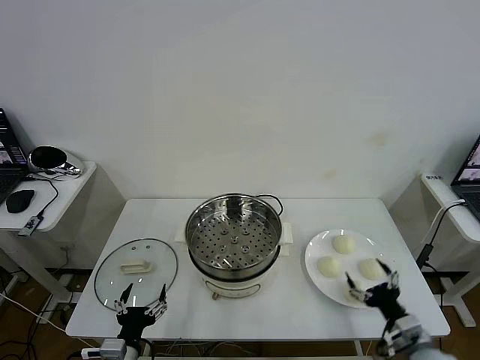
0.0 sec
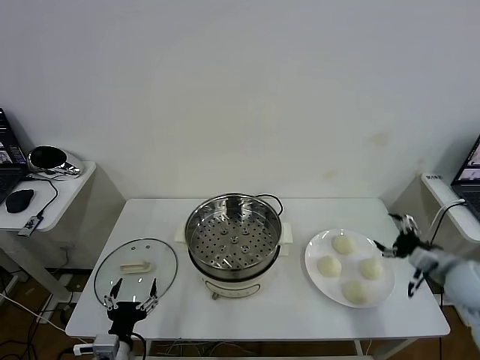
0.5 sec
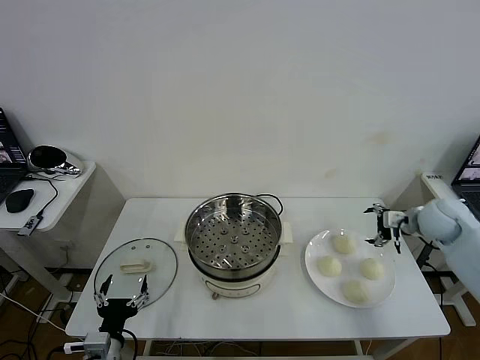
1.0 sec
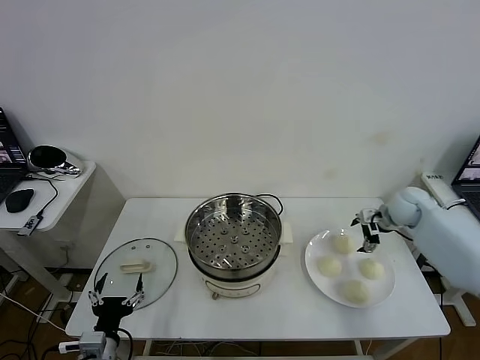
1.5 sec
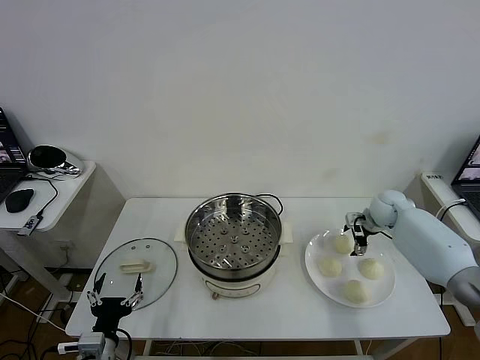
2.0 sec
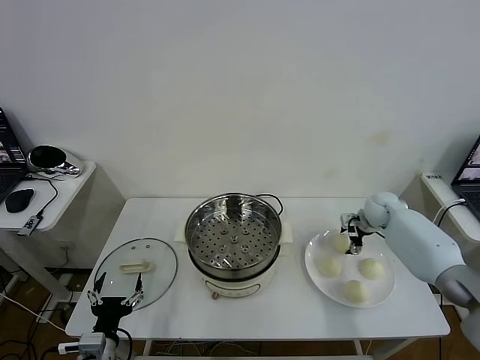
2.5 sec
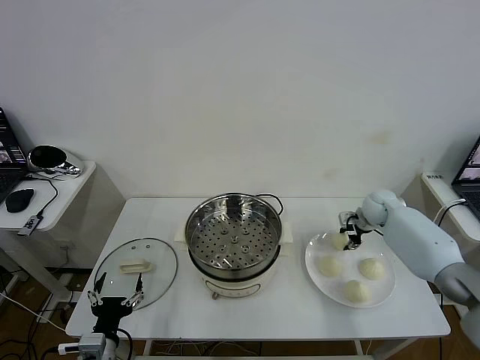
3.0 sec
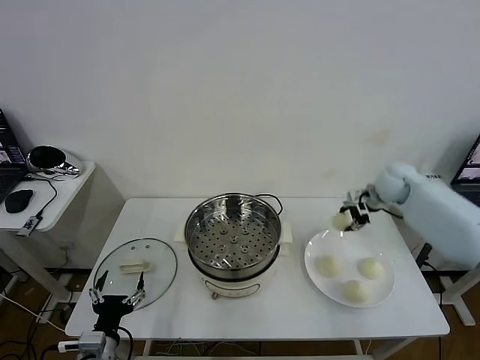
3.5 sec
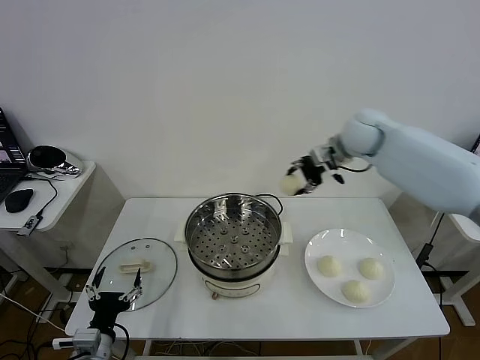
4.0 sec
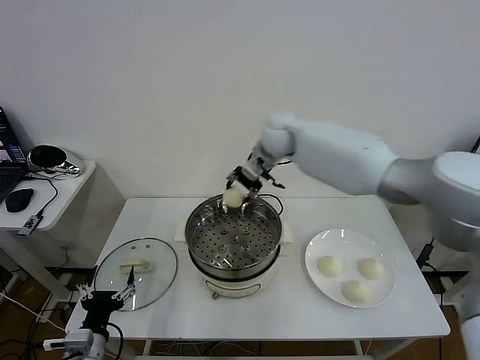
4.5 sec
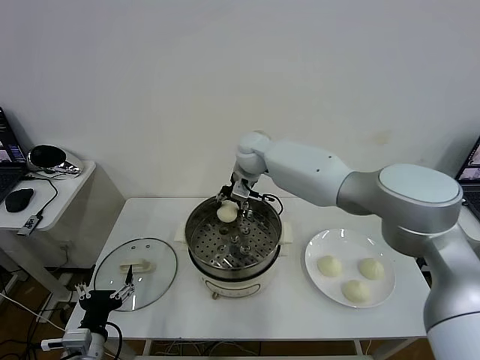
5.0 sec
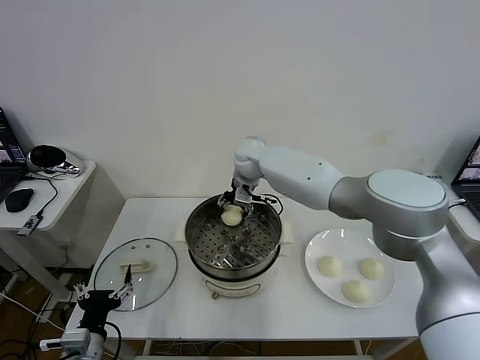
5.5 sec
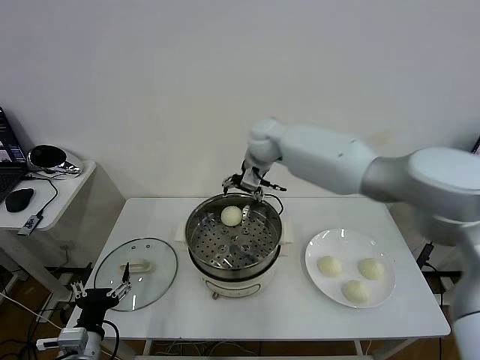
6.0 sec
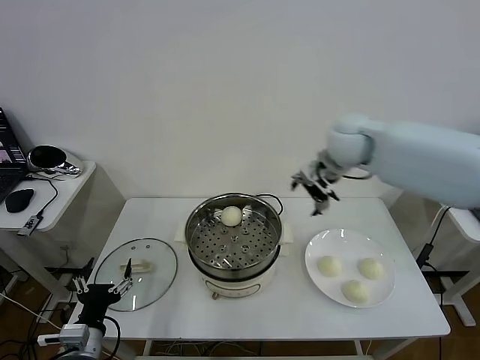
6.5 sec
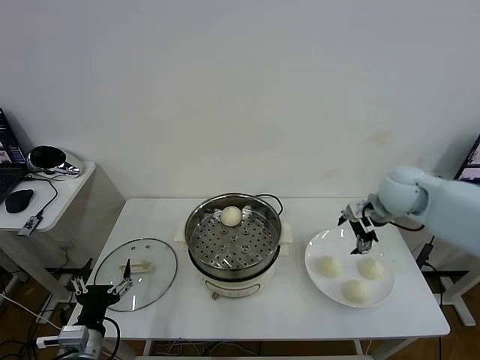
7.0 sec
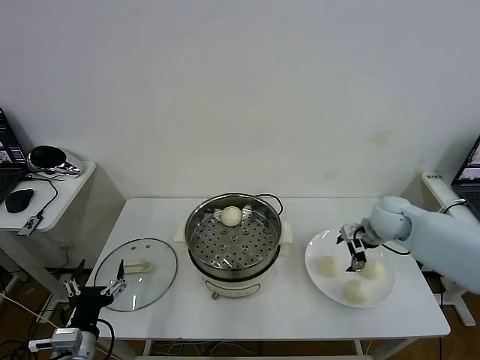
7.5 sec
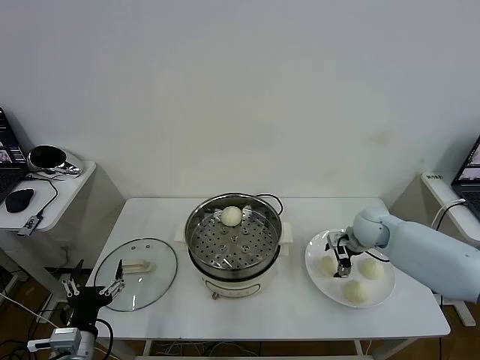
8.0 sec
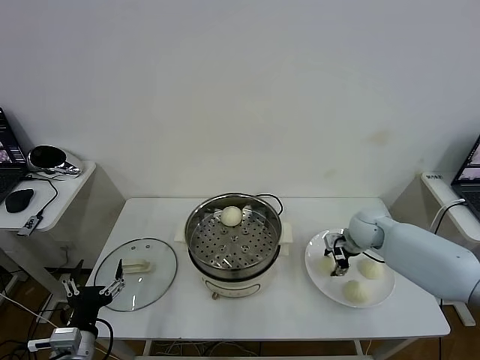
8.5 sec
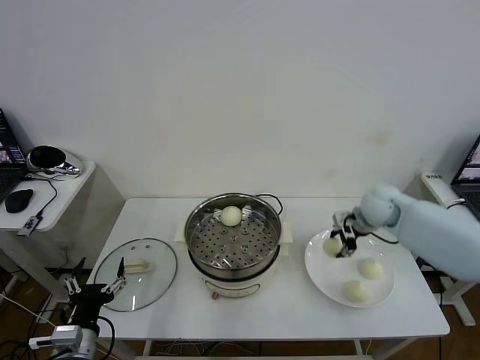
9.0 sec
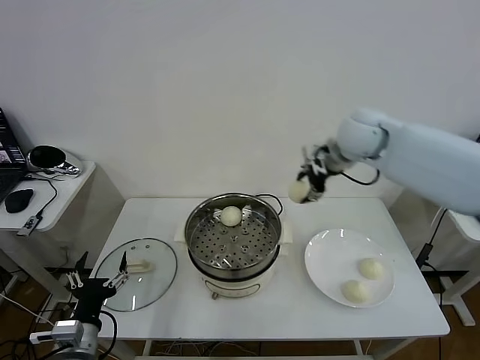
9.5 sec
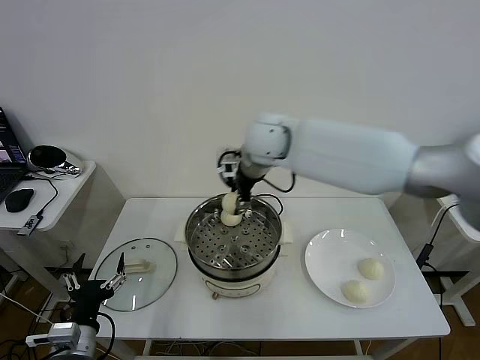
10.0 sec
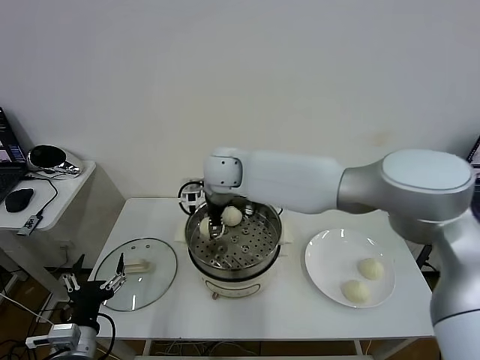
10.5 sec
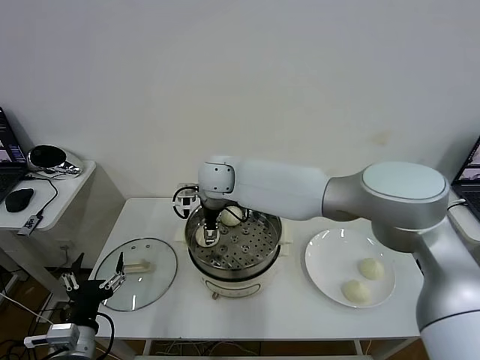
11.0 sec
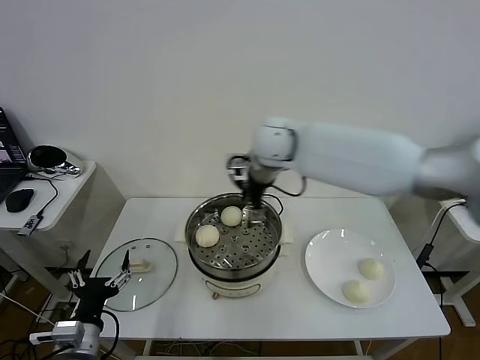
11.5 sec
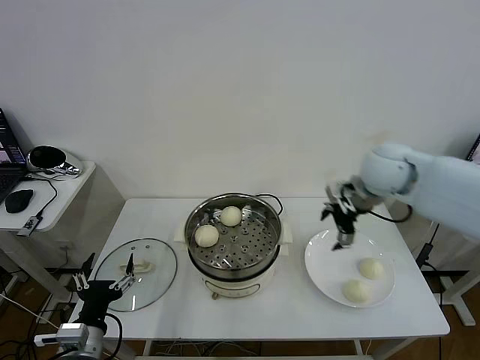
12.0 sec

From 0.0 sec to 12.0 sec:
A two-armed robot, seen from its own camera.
Task of the whole recording: take steamed baozi put them in steamer then cover it.
Step, from 0.0 sec to 2.5 sec: Grasp the baozi in the plate with right gripper.
Step, from 3.0 sec to 5.5 sec: Place the baozi on the steamer with right gripper.
Step, from 6.0 sec to 8.5 sec: Grasp the baozi in the plate with right gripper.
Step, from 9.0 sec to 11.0 sec: Place the baozi on the steamer with right gripper.
From 2.0 sec to 4.0 sec: The right gripper heads upward and to the left, covering some 30 cm, and closes.
From 4.0 sec to 6.0 sec: The right gripper shifts roughly 10 cm to the left, and opens its fingers.
From 6.0 sec to 8.0 sec: The right gripper goes about 35 cm to the right, downward and backward.
From 8.0 sec to 10.0 sec: The right gripper travels to the left and upward by approximately 40 cm, and closes its fingers.
From 10.0 sec to 12.0 sec: The right gripper shifts some 30 cm to the right, and opens.

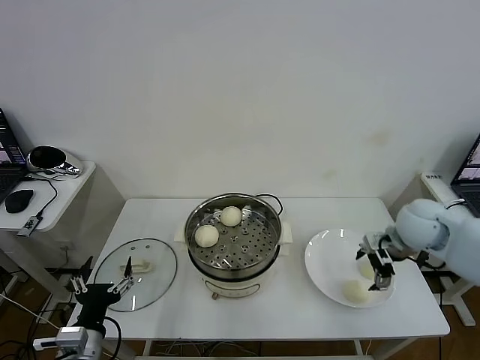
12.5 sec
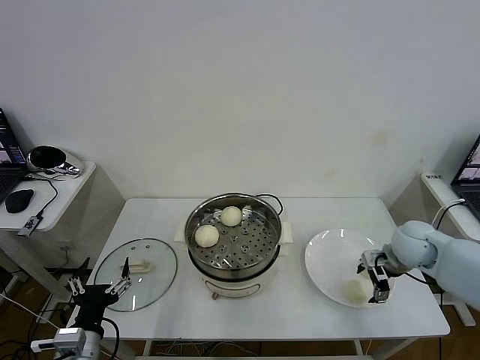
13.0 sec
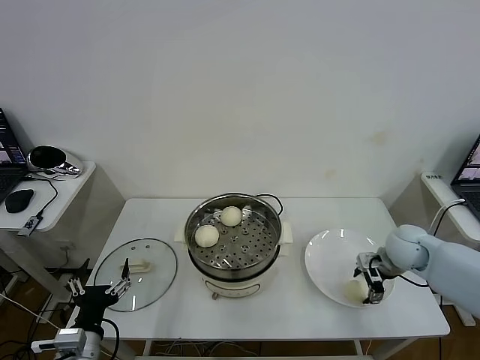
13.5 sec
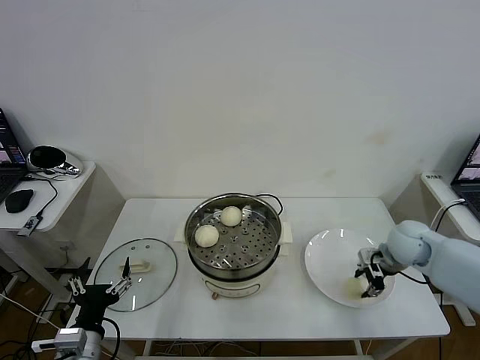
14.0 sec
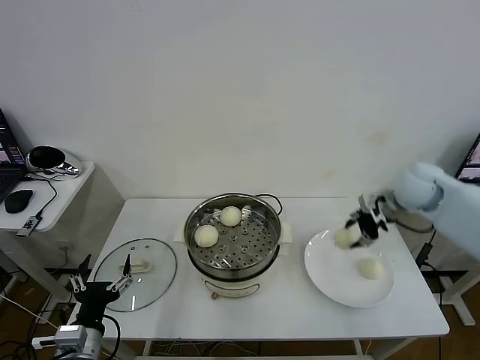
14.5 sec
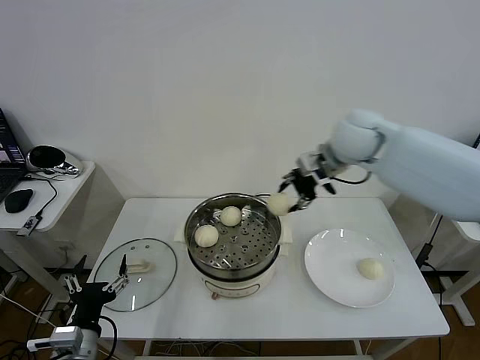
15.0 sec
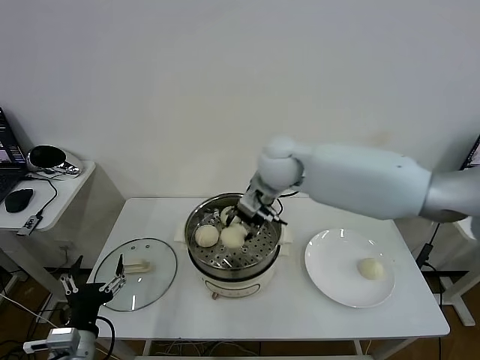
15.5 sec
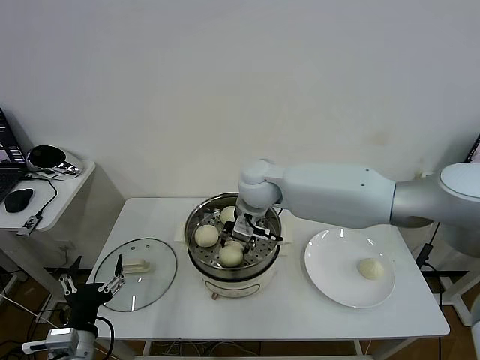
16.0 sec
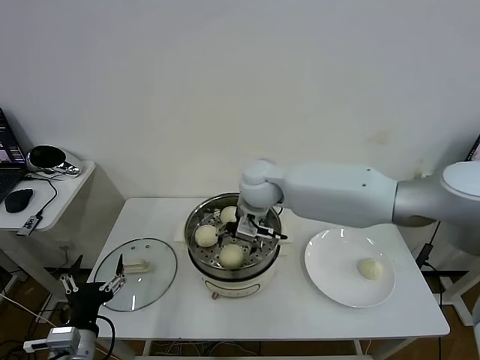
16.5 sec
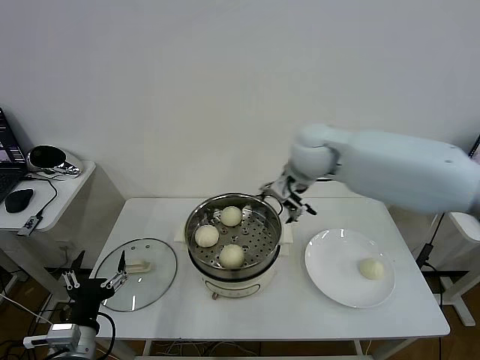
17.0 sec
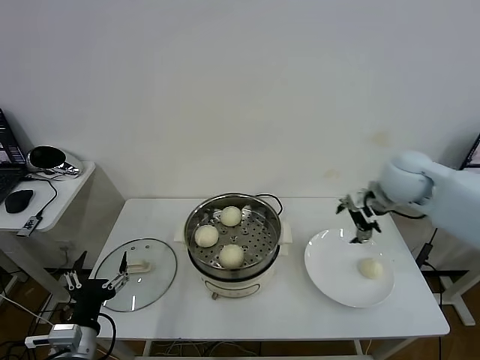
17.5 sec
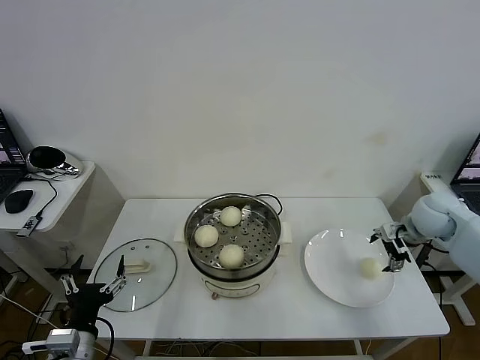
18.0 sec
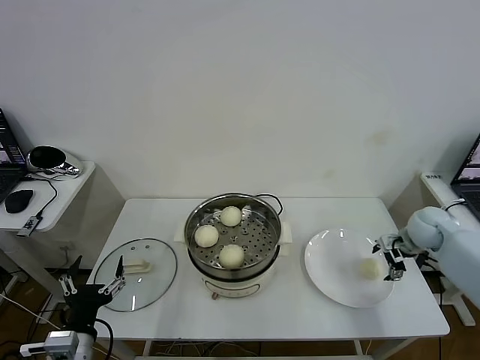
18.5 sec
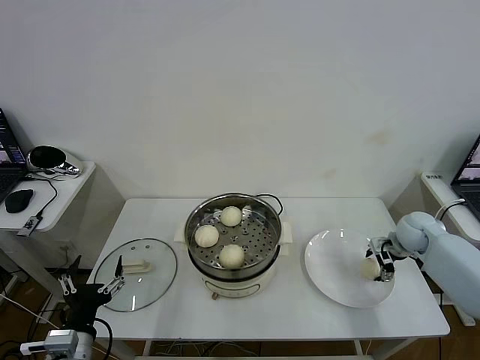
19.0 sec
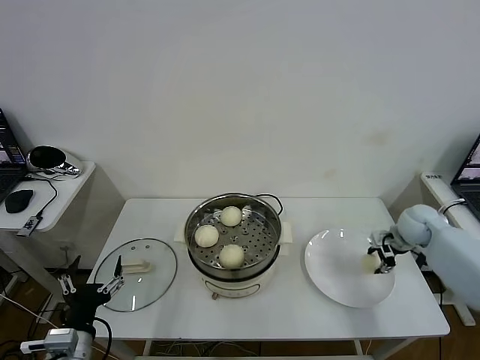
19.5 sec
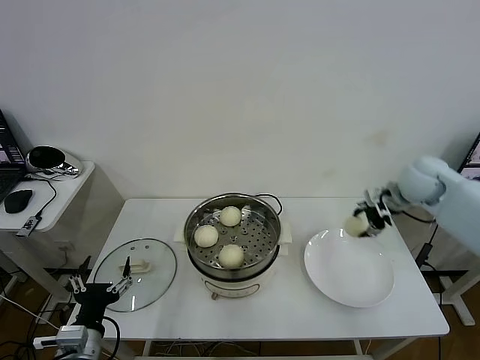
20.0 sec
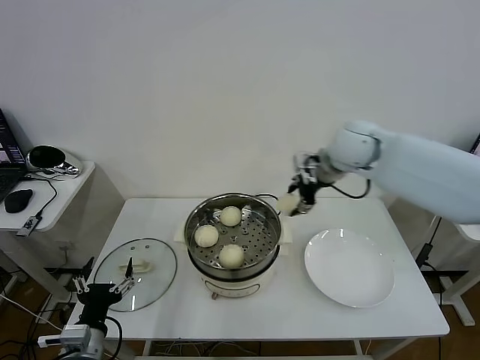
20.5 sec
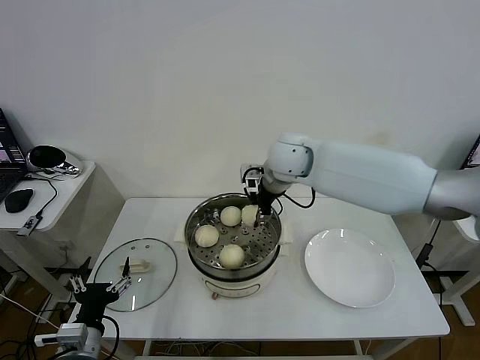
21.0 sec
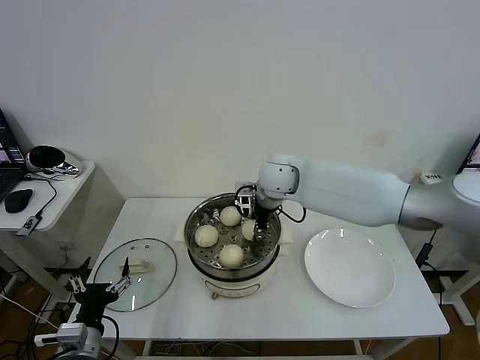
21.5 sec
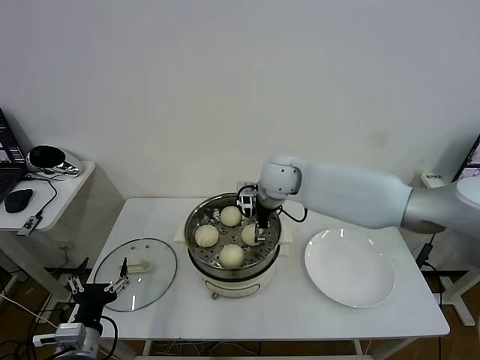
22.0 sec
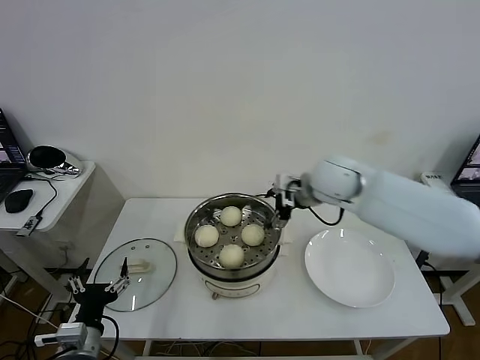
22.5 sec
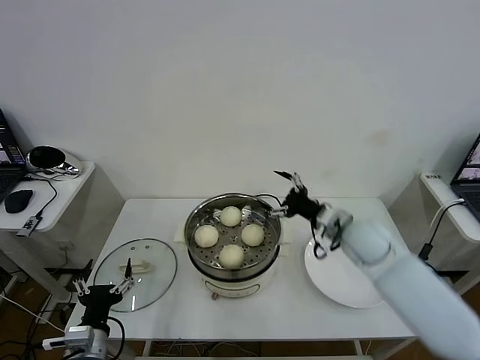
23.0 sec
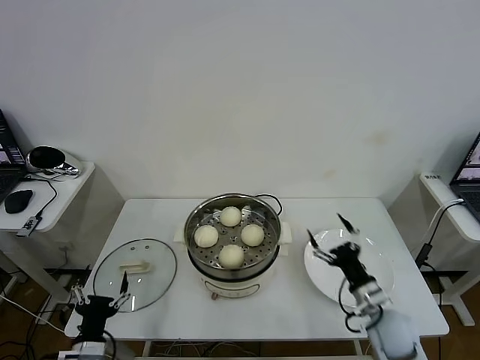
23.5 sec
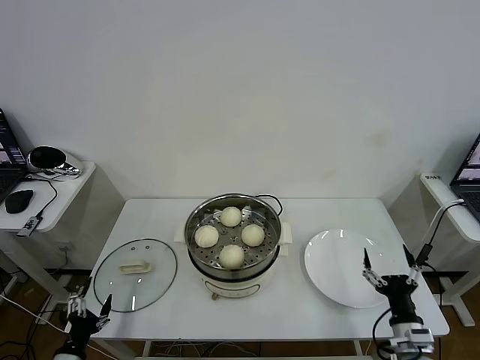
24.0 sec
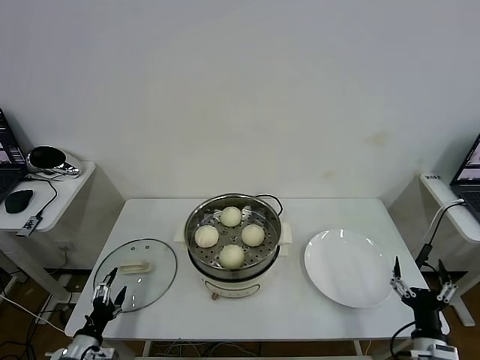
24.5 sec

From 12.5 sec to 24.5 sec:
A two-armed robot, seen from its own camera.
Task of the whole recording: take steamed baozi put them in steamer then cover it.
Step, from 14.0 sec to 16.5 sec: Place the baozi on the steamer with right gripper.
Step, from 17.0 sec to 19.0 sec: Grasp the baozi in the plate with right gripper.
Step, from 19.5 sec to 22.0 sec: Place the baozi on the steamer with right gripper.
From 12.5 sec to 14.5 sec: The right gripper travels upward and forward by approximately 15 cm, and closes up.
From 14.5 sec to 16.5 sec: The right gripper goes about 30 cm to the left, and opens its fingers.
From 16.5 sec to 18.5 sec: The right gripper shifts about 40 cm to the right.
From 18.5 sec to 20.5 sec: The right gripper goes approximately 35 cm to the left and upward, and closes its fingers.
From 20.5 sec to 22.5 sec: The right gripper goes some 5 cm downward, goes to the left and returns, some 10 cm each way, and opens up.
From 22.5 sec to 24.5 sec: The left gripper moves downward and to the left, roughly 15 cm. The right gripper shifts approximately 40 cm backward, downward and to the right.

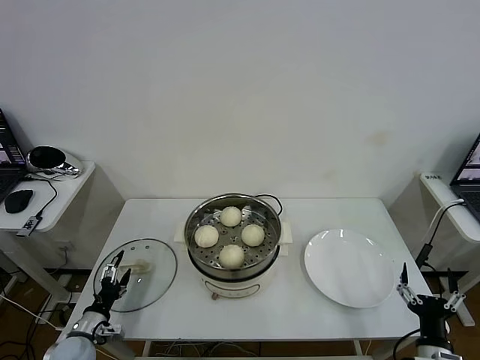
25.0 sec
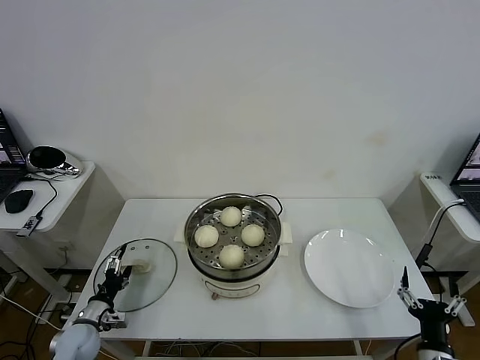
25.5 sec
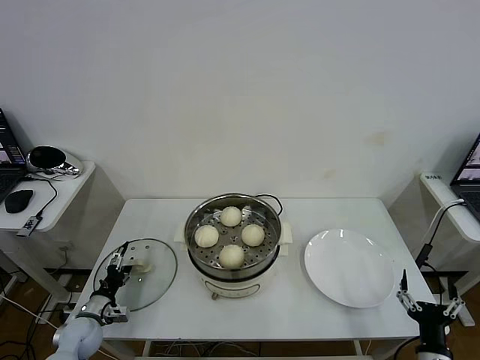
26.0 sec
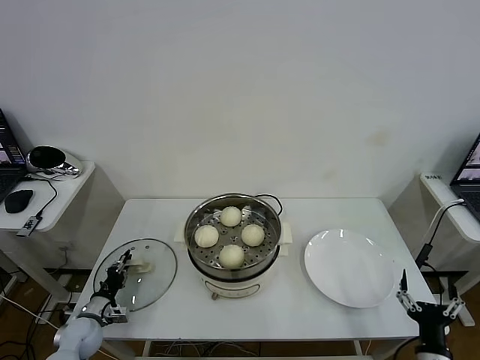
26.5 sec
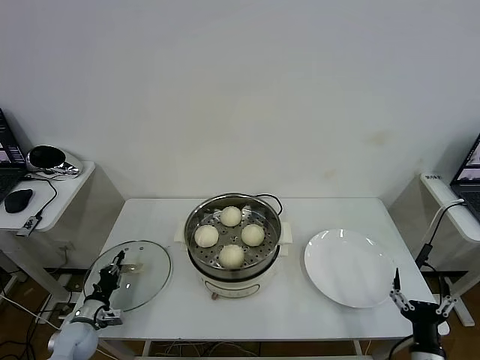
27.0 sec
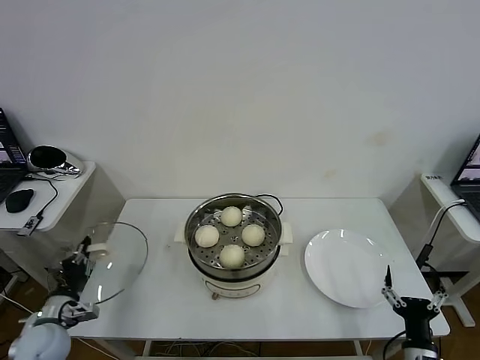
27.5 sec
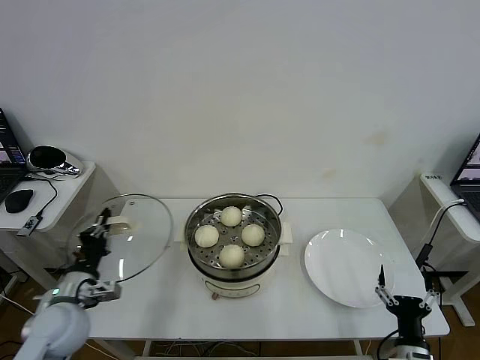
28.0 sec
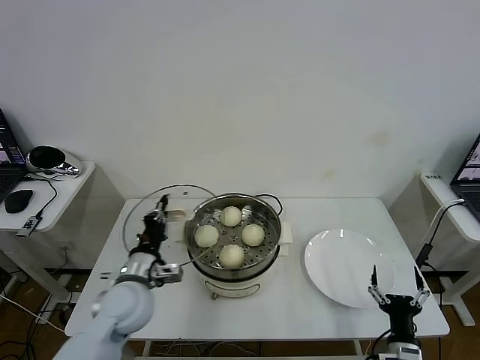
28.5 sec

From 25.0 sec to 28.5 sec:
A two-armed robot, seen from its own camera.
Task of the whole recording: take steamed baozi put them in steamer then cover it.
From 25.0 sec to 27.0 sec: The left gripper shifts by some 5 cm, and closes.
From 27.0 sec to 28.5 sec: The left gripper travels upward and to the right by about 30 cm.
